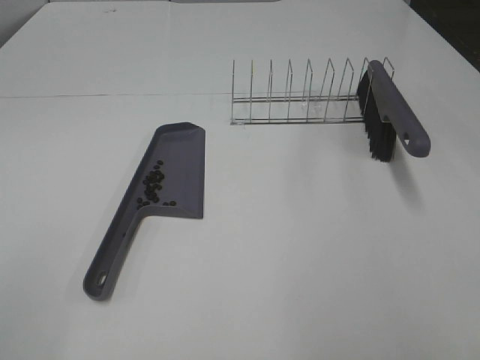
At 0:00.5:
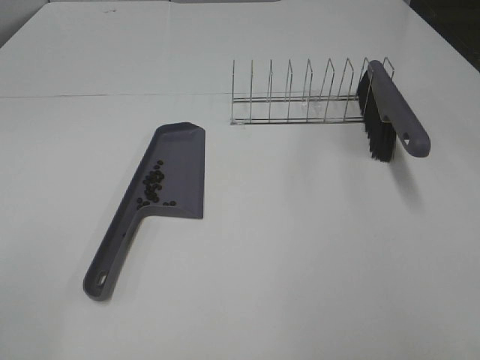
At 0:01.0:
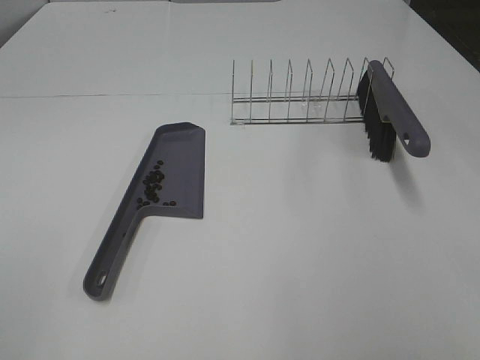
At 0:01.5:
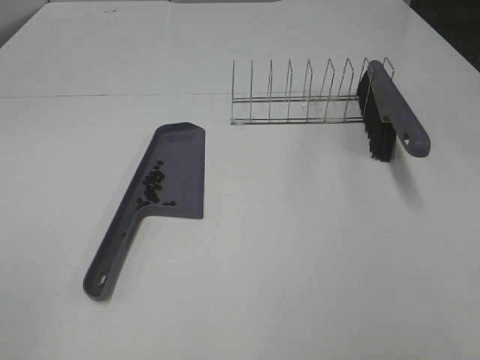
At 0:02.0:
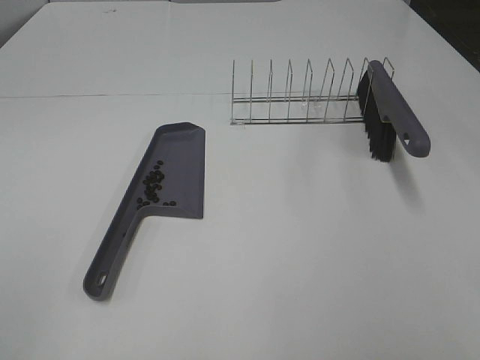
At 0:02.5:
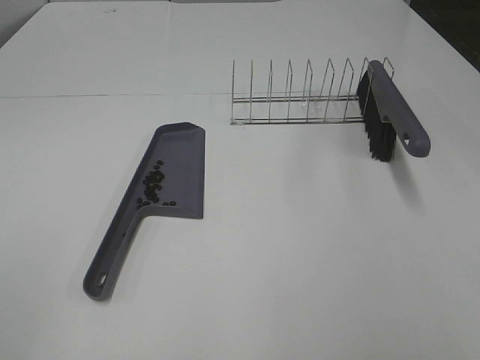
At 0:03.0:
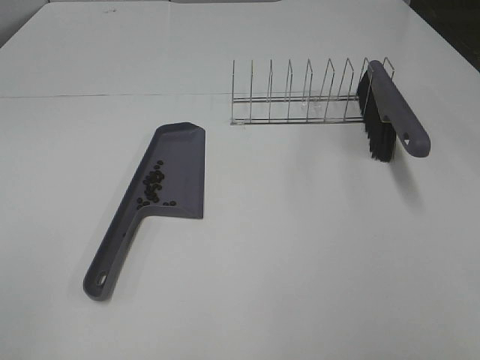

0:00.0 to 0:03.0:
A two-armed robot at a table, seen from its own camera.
Task of the whole recording: Sweep Coffee Bean.
0:01.5 to 0:03.0: Both grippers stay put.

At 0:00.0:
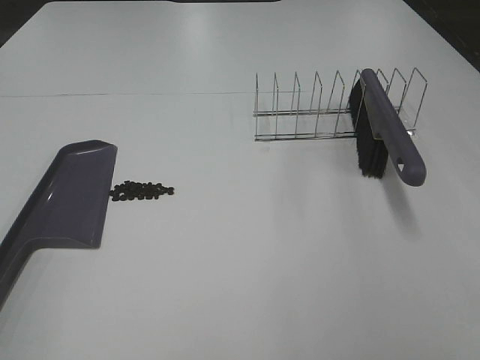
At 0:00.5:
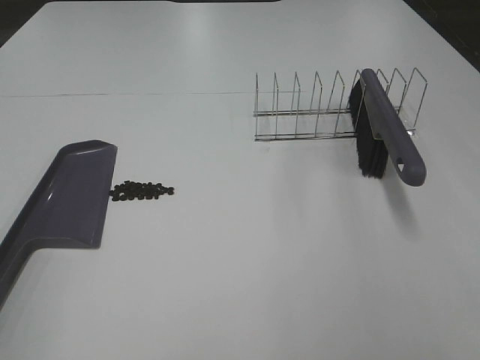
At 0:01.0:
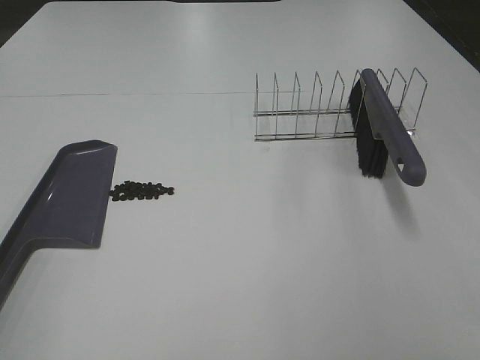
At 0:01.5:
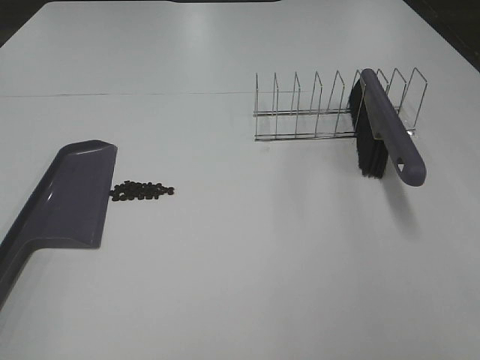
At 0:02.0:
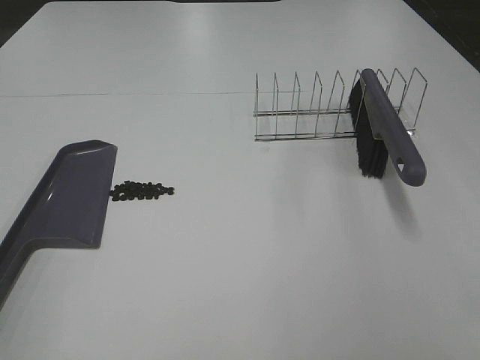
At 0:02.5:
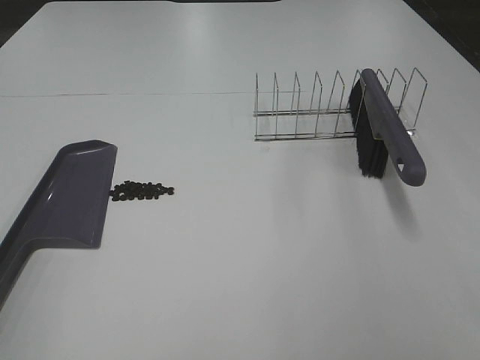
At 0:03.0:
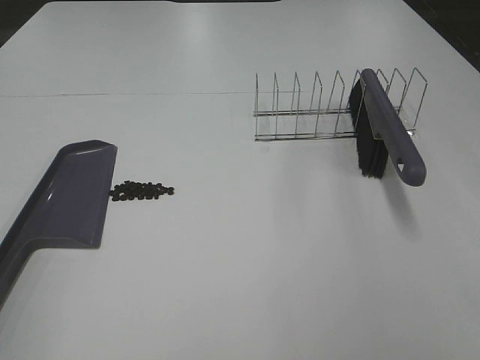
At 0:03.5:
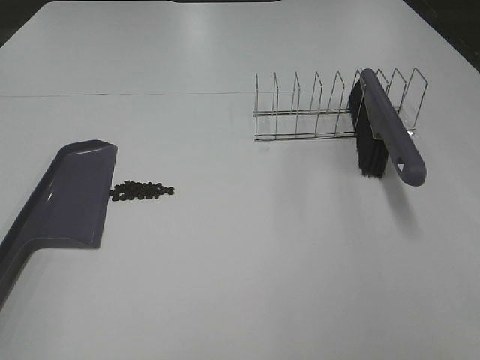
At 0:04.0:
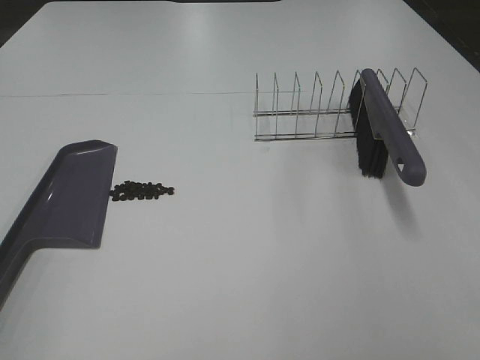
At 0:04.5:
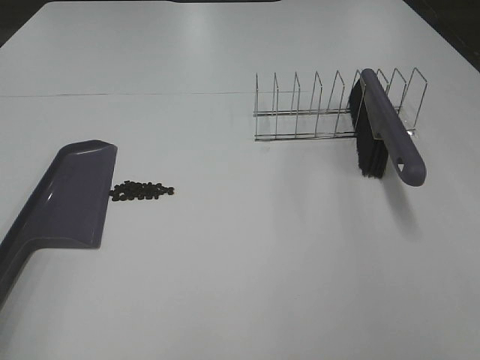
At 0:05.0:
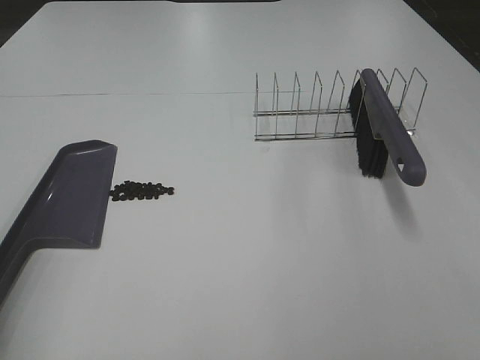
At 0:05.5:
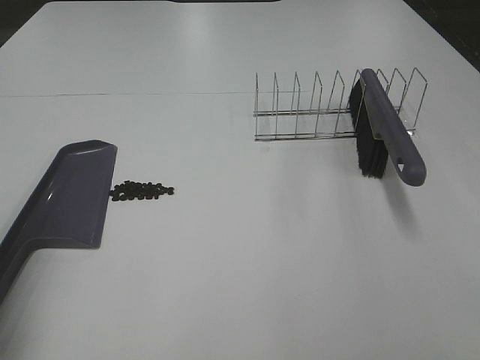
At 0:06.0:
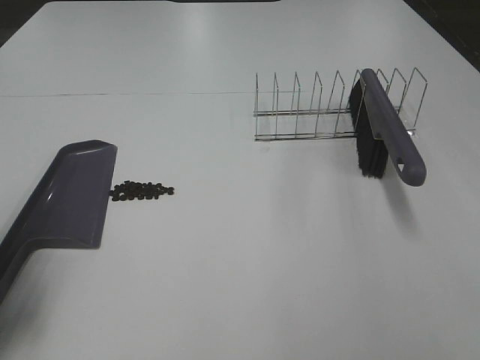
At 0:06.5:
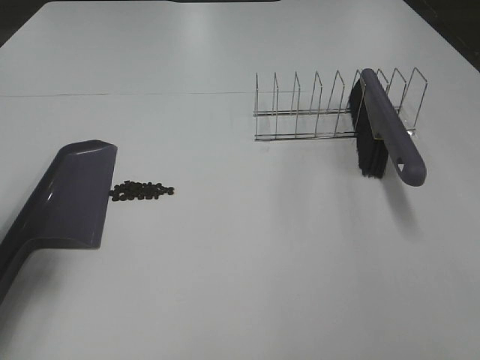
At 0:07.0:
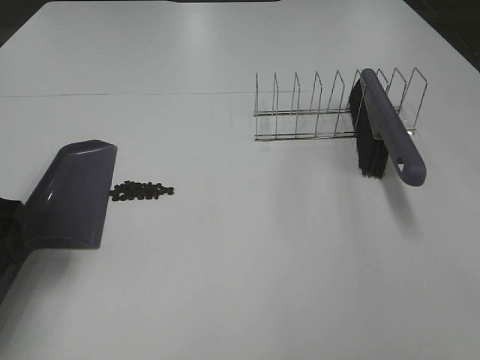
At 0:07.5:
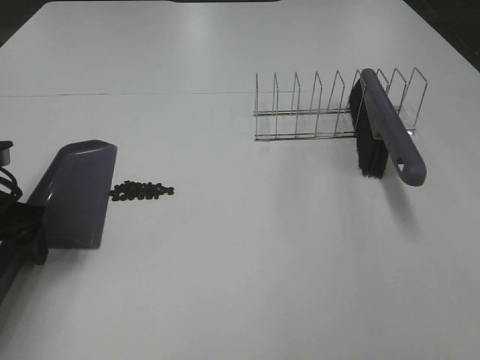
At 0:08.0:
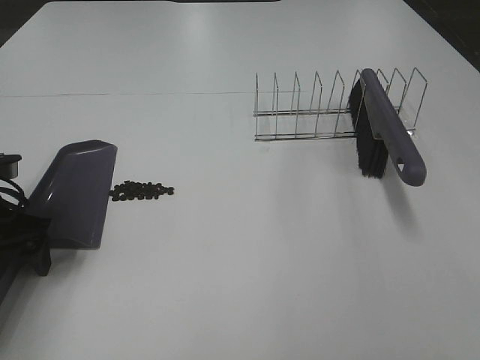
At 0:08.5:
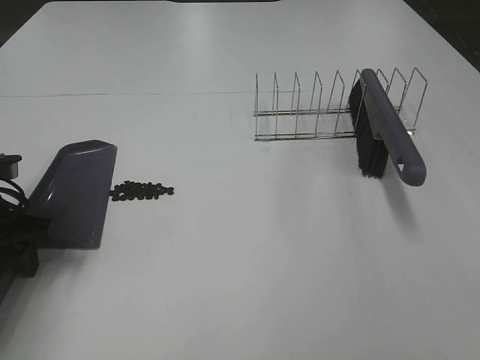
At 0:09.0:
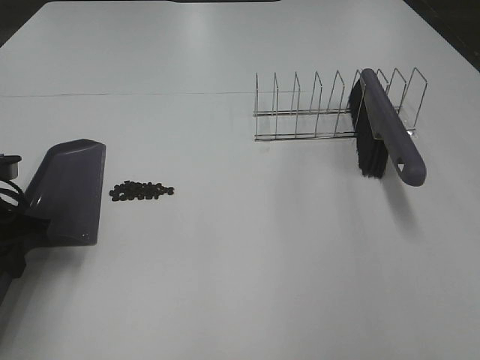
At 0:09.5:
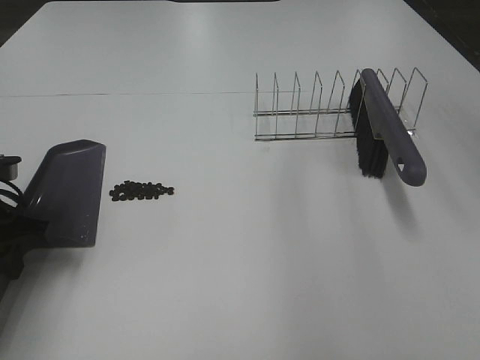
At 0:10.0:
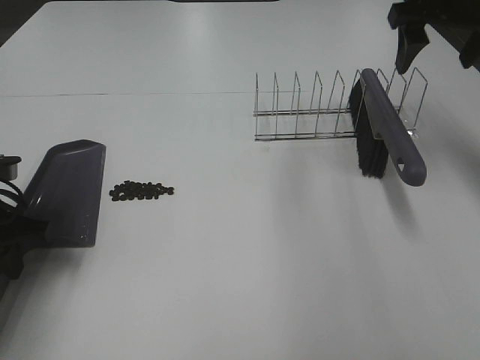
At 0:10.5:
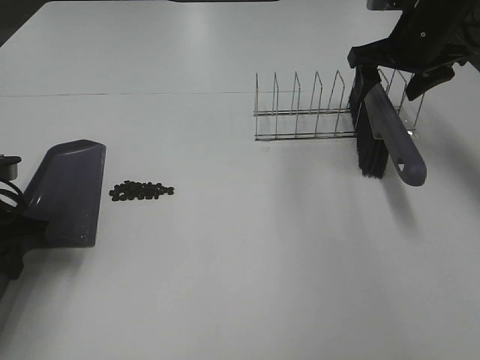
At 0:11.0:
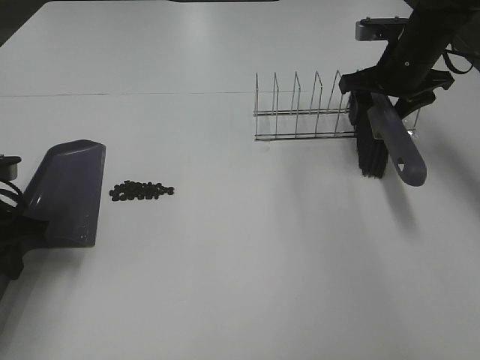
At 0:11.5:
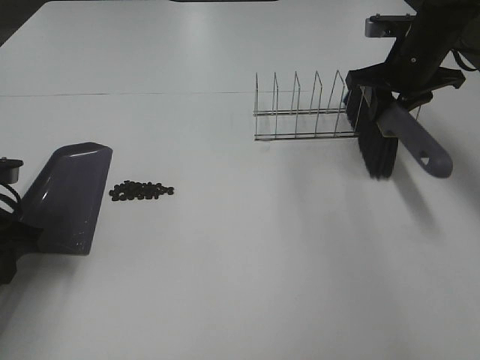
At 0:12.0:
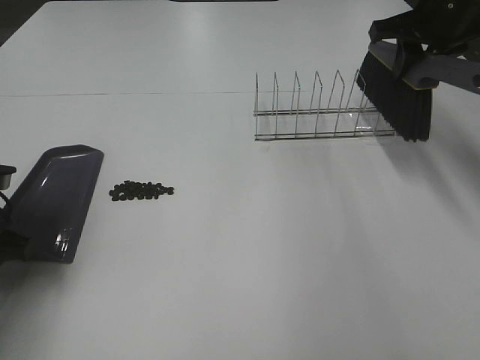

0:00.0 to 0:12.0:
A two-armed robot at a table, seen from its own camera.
Task of the whole recording: Sweep Coffee Bean.
Step, 0:00.0 to 0:09.0: Left hand: grab the dustpan.
Step, 0:08.5 to 0:11.0: Right hand:grab the broom.
0:00.0 to 0:04.0: Both grippers stay about where they are.
0:04.0 to 0:06.0: The left gripper is displaced forward and downward by approximately 20 cm.
0:06.0 to 0:08.0: The left gripper heads forward and downward, covering about 10 cm.
0:08.0 to 0:10.0: The right gripper heads forward, covering about 40 cm. The left gripper closes its fingers.
0:10.0 to 0:12.0: The right gripper travels downward and back again, some 10 cm each way, and closes up.

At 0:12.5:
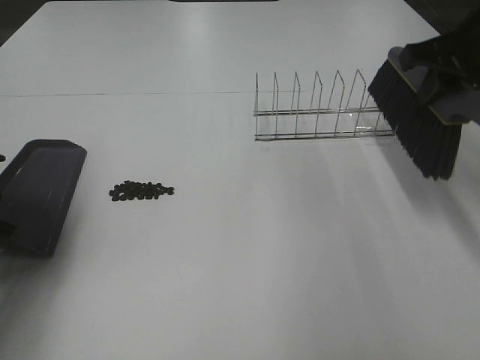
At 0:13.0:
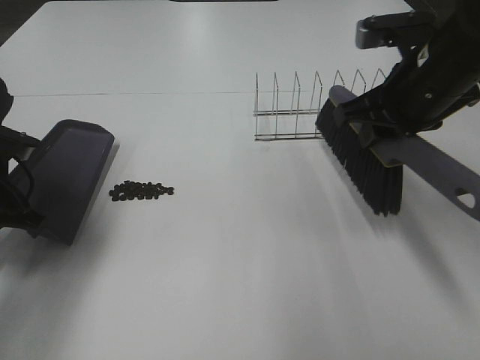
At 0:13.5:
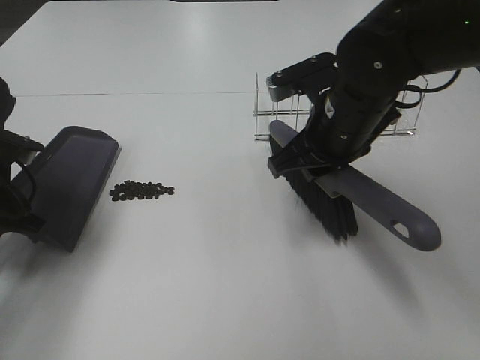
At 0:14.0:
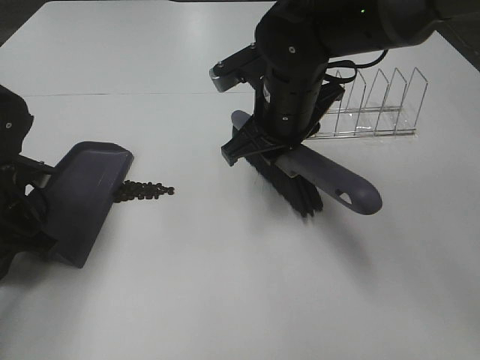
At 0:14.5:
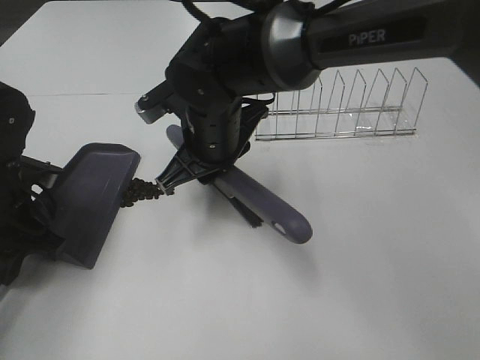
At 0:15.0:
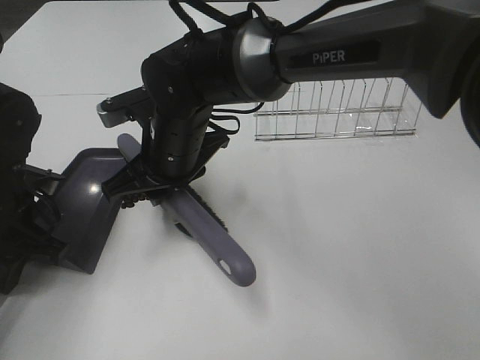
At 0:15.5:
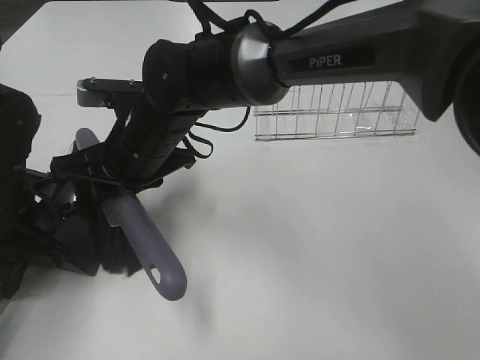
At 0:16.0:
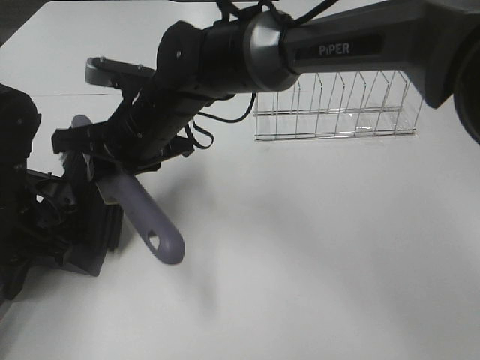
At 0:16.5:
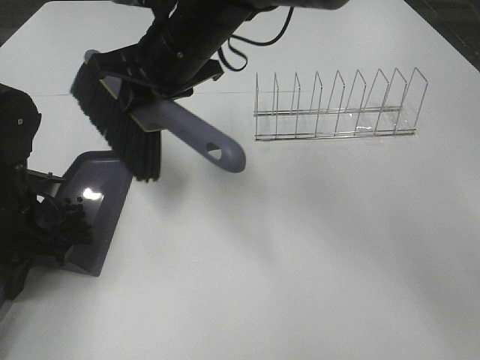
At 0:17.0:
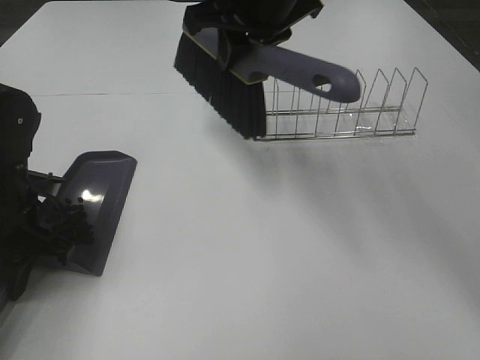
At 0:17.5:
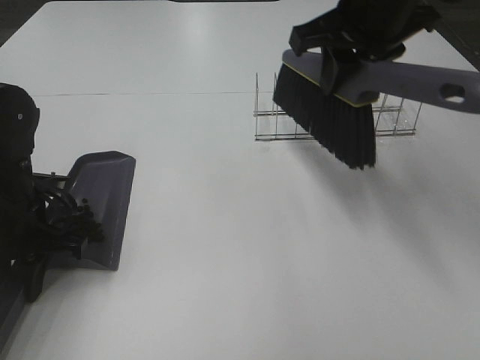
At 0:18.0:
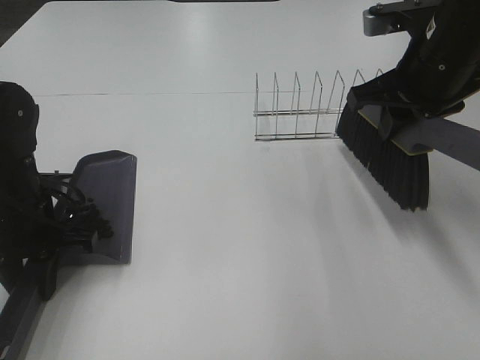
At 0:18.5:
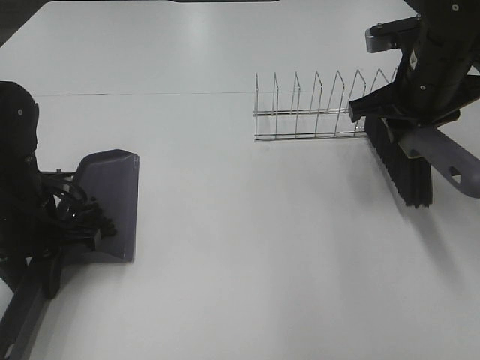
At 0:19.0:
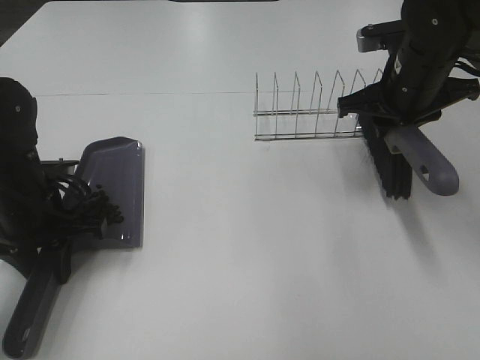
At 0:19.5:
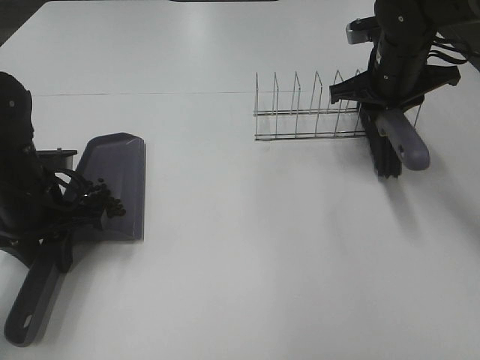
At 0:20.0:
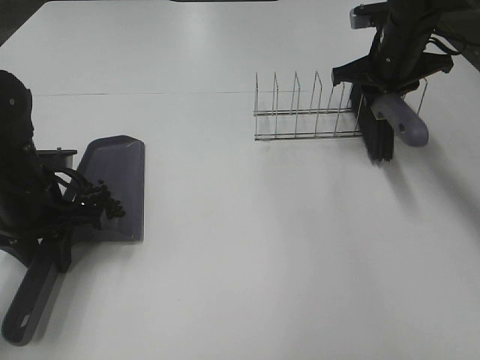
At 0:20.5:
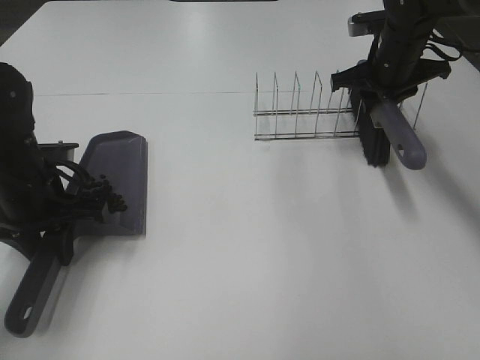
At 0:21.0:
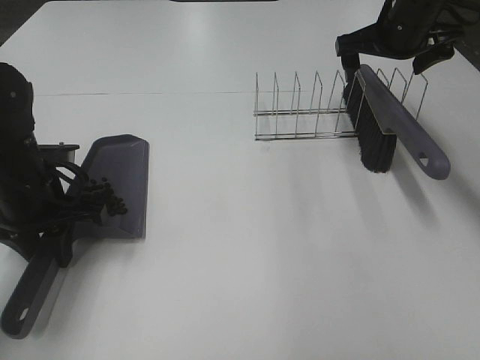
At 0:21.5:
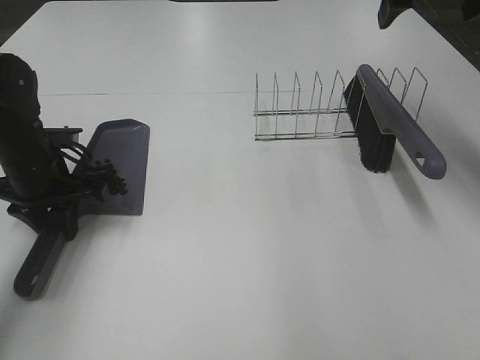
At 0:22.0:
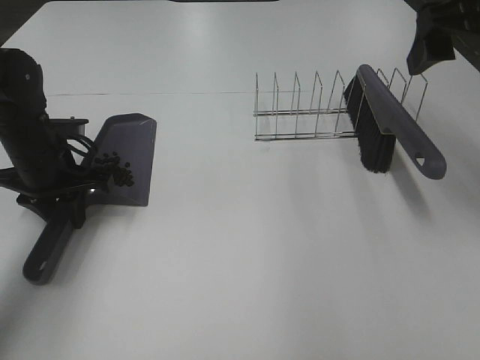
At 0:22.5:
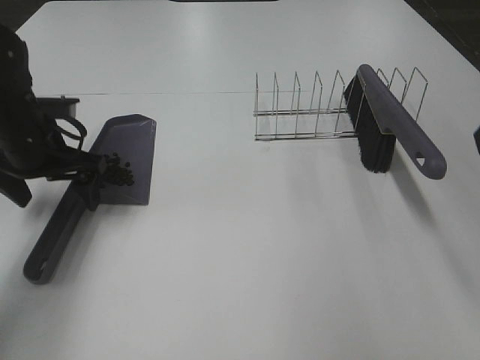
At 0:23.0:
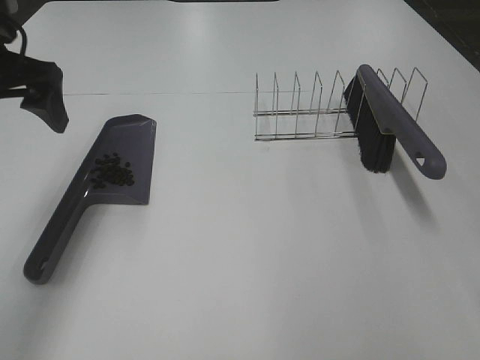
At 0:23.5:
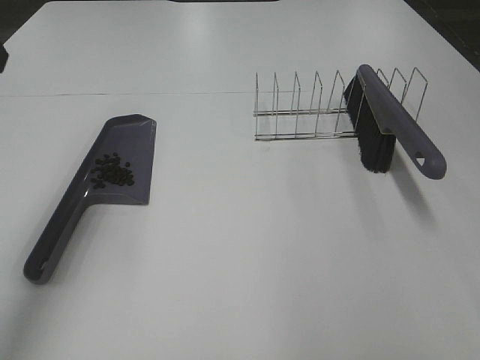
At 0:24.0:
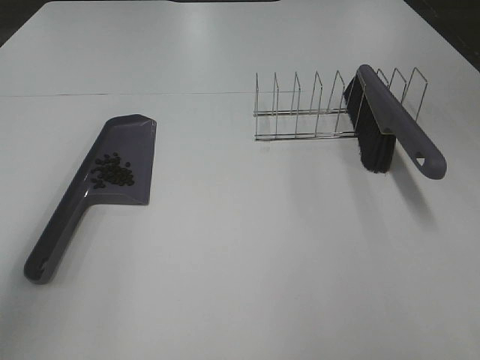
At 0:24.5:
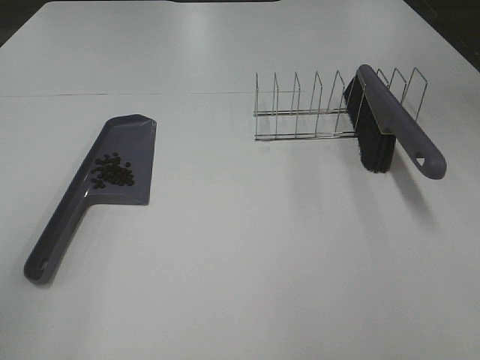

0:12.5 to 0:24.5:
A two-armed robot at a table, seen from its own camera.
Task of the whole recording: Sweep Coffee Bean.
Step, 0:12.5 to 0:16.0: Right hand:sweep the coffee beans into the dustpan.
Step, 0:16.5 to 0:20.5: Right hand:place the broom on the rack.
Step, 0:21.0 to 0:22.0: Left hand:place the dustpan on the table.
0:12.5 to 0:14.5: The left gripper heads to the right, covering roughly 5 cm. The right gripper heads to the left and downward, covering some 30 cm.
0:14.5 to 0:16.5: The right gripper moves upward, some 10 cm.
0:16.5 to 0:18.5: The right gripper goes about 25 cm to the right.
0:18.5 to 0:20.5: The right gripper heads forward, covering roughly 10 cm.
0:20.5 to 0:22.5: The left gripper heads forward, covering approximately 5 cm, and opens. Meanwhile the right gripper shifts some 30 cm backward and upward, and opens.
0:22.5 to 0:24.5: The right gripper travels backward by roughly 15 cm. Meanwhile the left gripper goes about 40 cm backward and upward.
